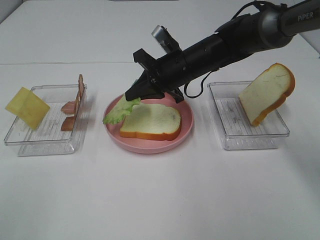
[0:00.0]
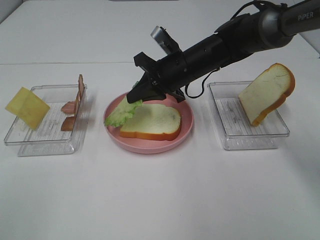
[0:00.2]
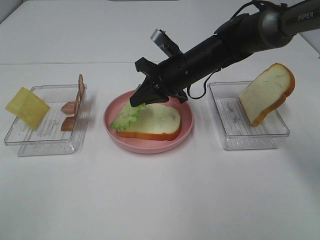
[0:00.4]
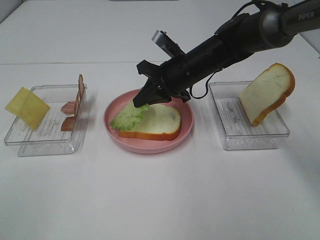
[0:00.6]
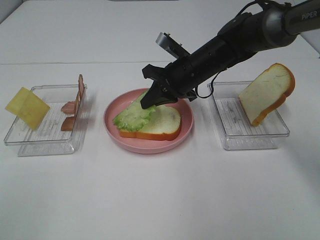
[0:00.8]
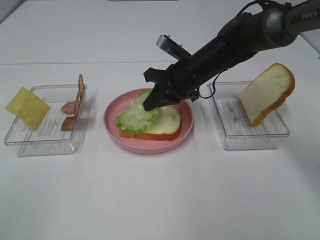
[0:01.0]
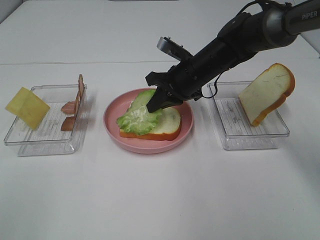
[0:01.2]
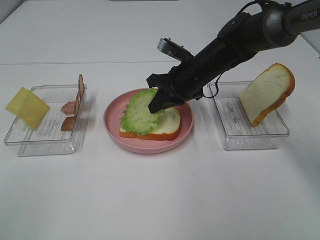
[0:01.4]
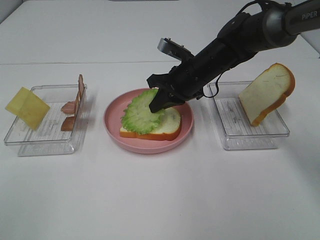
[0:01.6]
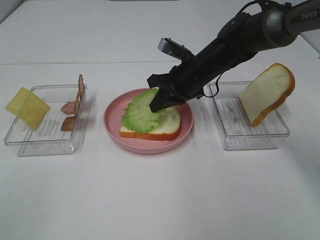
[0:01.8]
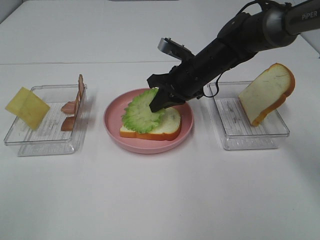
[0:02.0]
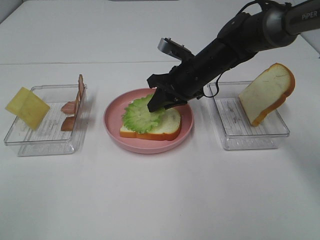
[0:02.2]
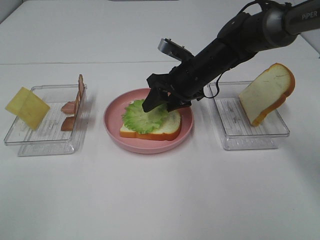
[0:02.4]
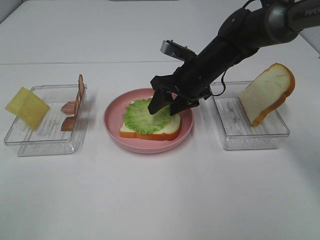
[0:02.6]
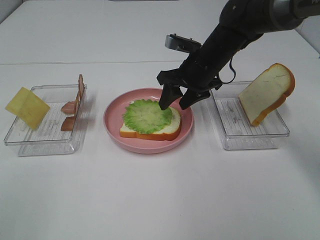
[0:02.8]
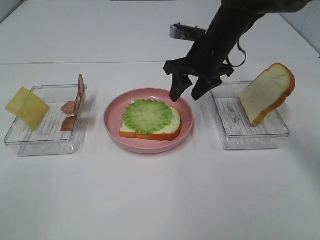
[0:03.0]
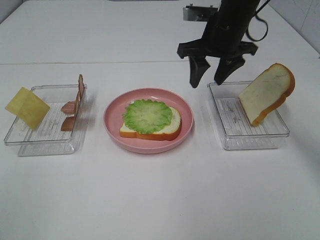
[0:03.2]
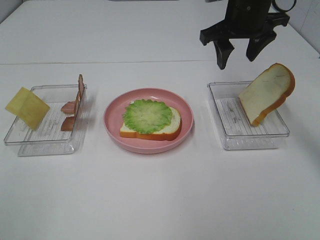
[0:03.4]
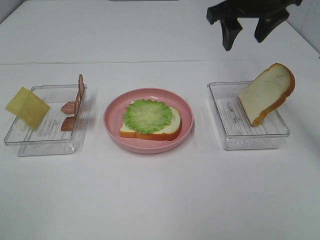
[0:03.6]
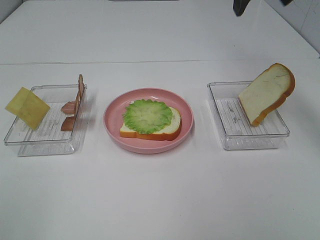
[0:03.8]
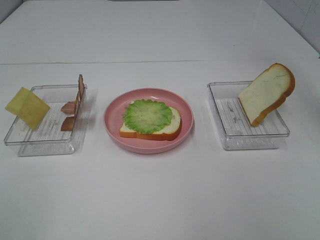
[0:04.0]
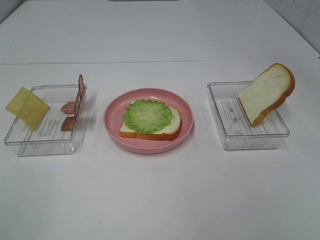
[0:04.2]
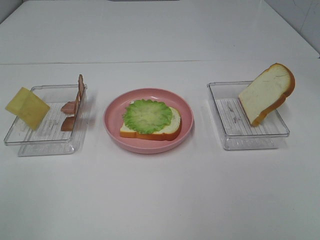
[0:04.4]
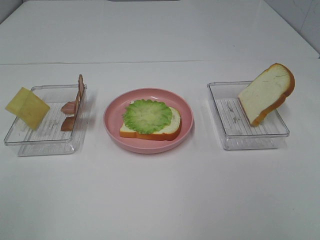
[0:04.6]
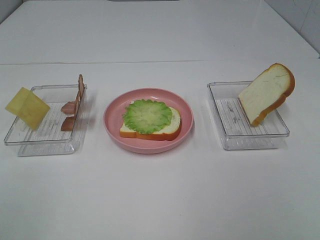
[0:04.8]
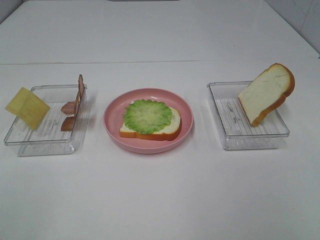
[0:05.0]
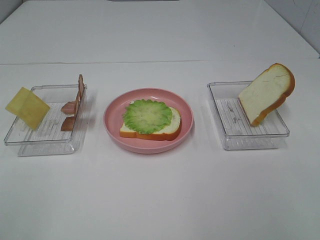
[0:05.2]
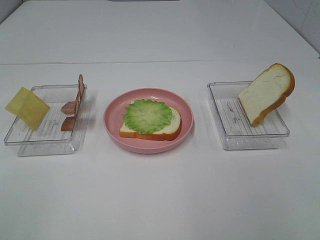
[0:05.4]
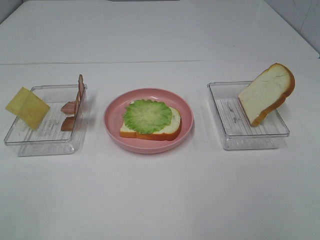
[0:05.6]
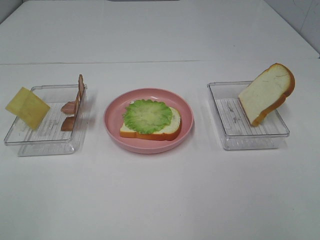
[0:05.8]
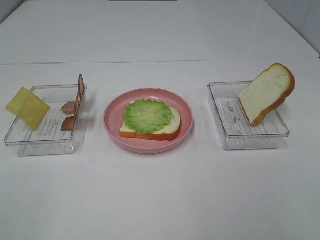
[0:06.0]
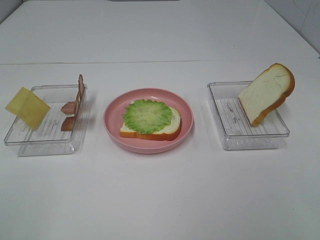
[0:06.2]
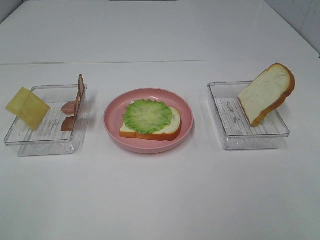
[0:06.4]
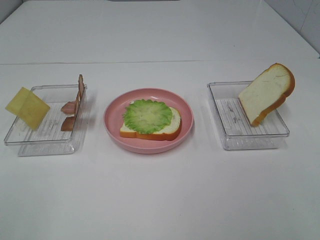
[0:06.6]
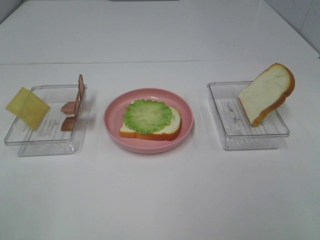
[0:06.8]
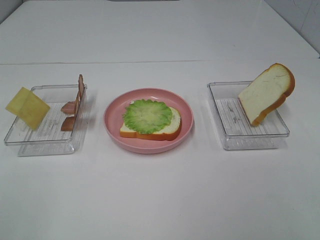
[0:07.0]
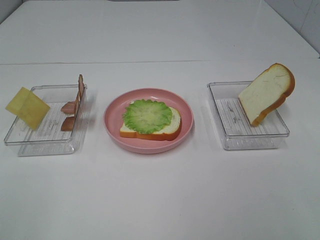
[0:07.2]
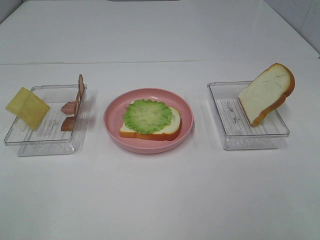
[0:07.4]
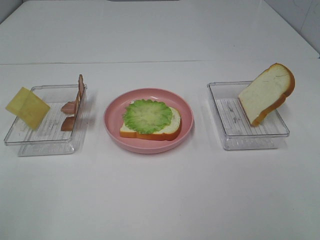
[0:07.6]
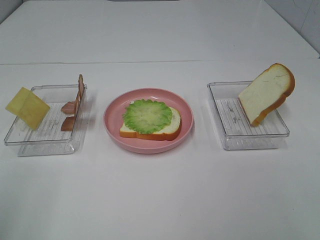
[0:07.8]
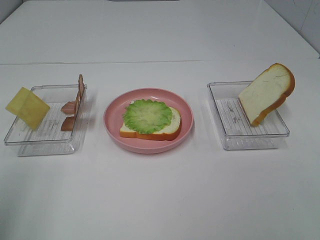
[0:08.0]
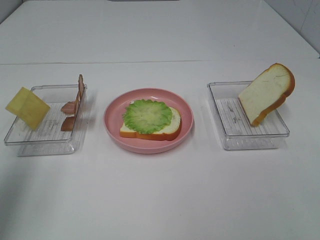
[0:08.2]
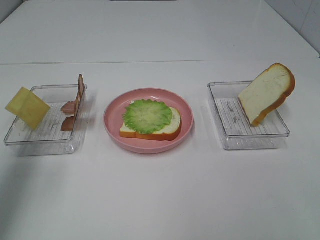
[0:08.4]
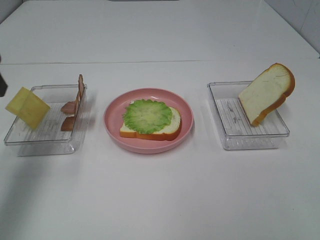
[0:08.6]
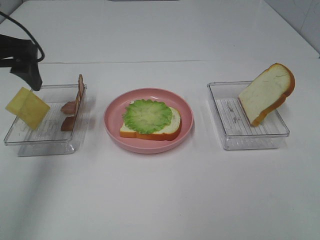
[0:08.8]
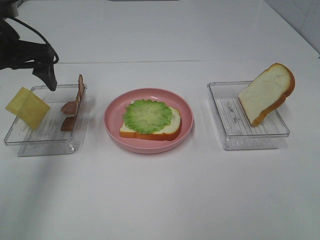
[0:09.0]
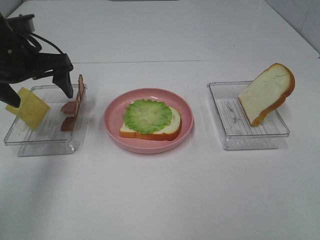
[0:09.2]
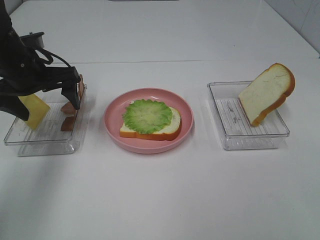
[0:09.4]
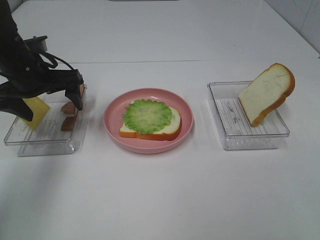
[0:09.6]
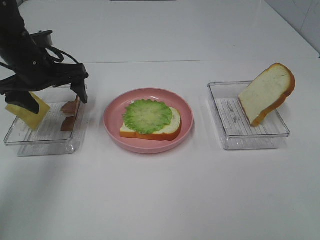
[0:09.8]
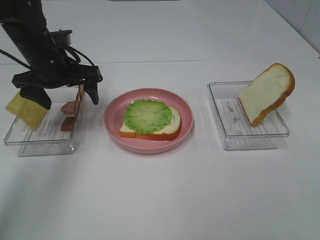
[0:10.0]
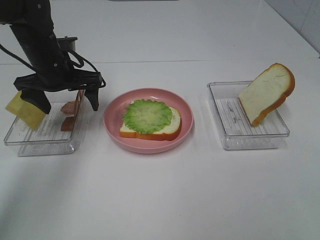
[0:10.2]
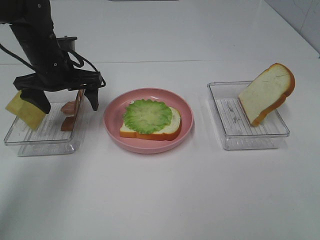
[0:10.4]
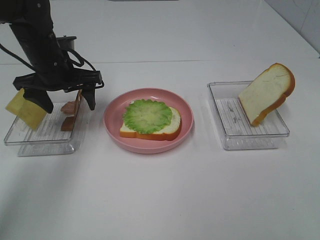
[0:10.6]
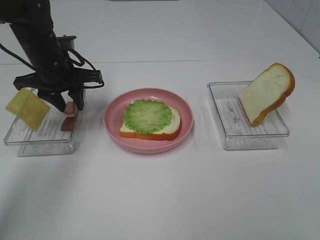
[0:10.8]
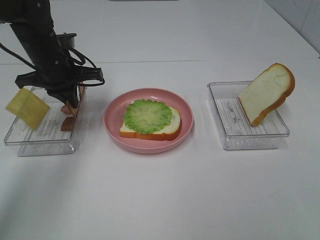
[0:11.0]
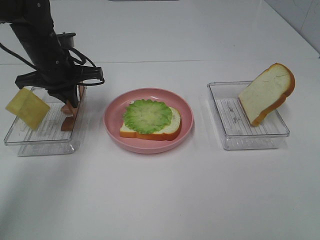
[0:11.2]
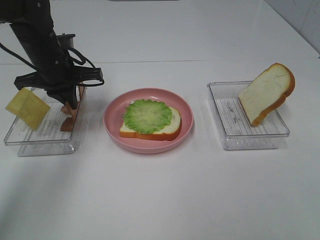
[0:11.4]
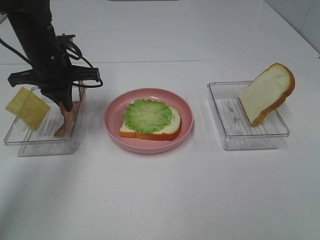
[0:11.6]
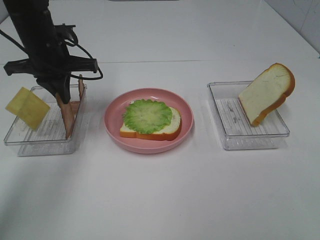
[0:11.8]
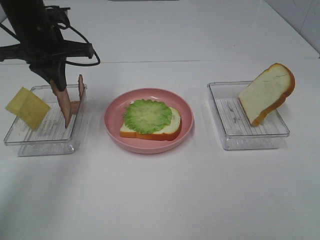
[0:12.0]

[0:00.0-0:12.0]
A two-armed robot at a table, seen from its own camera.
Task of the whole recording: Make sandwiches.
Step, 0:00.0 to 0:02.6: Right hand:place the lettuce slice on the bread slice.
Step, 0:02.8 to 0:11.0: Left hand:grab the bacon.
0:01.6 to 0:03.0: The right gripper moves upward, approximately 5 cm, and opens.
0:03.0 to 0:04.4: The right gripper moves upward, backward and to the right, approximately 50 cm, and opens its fingers.
0:07.6 to 0:09.0: The left gripper is displaced forward by about 35 cm.
0:09.0 to 0:10.4: The left gripper goes roughly 10 cm downward and forward.
0:10.4 to 0:12.0: The left gripper is displaced upward by approximately 10 cm, and closes its fingers.

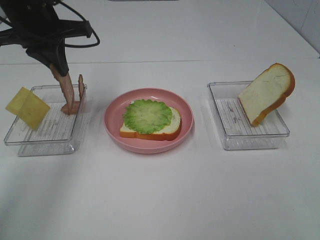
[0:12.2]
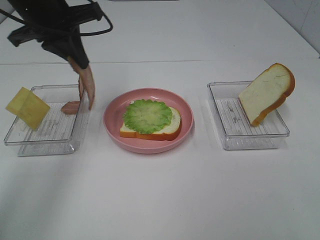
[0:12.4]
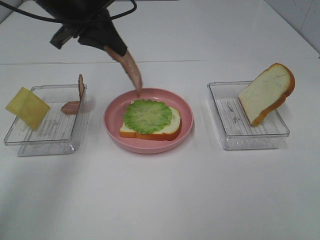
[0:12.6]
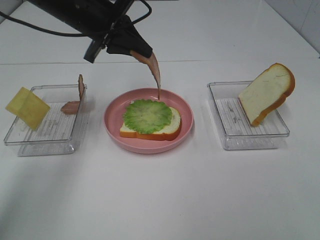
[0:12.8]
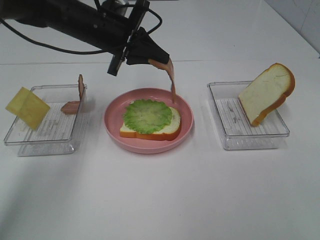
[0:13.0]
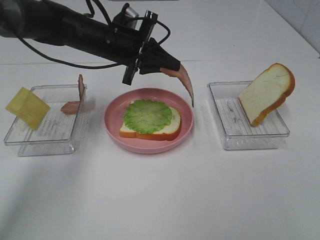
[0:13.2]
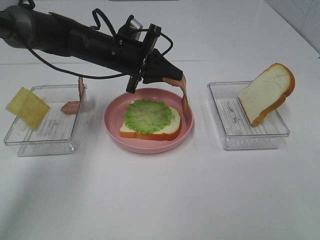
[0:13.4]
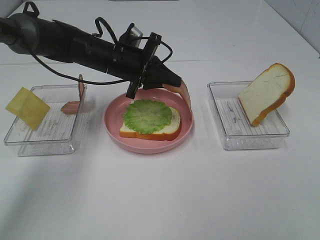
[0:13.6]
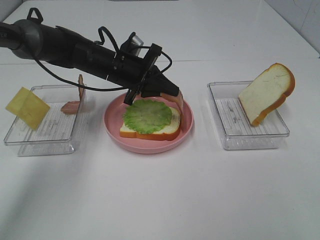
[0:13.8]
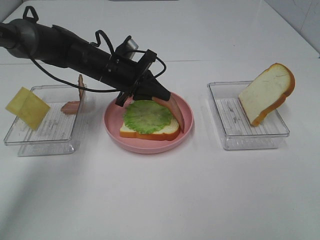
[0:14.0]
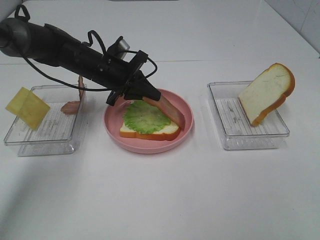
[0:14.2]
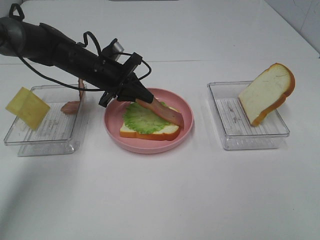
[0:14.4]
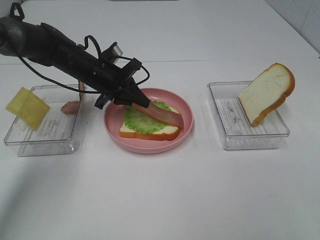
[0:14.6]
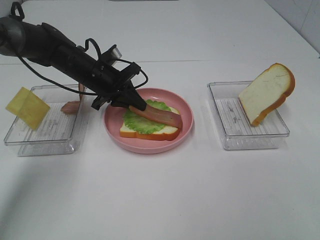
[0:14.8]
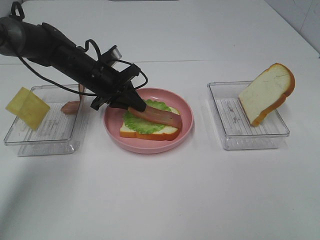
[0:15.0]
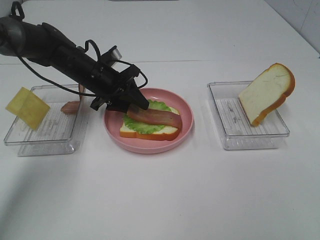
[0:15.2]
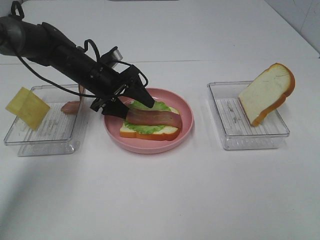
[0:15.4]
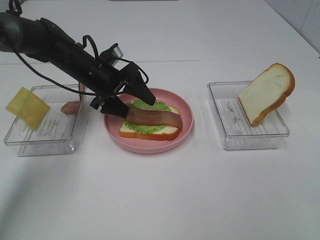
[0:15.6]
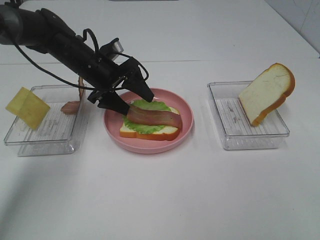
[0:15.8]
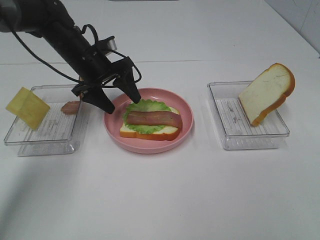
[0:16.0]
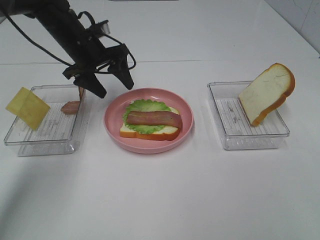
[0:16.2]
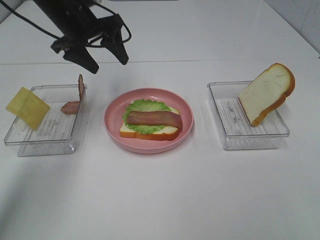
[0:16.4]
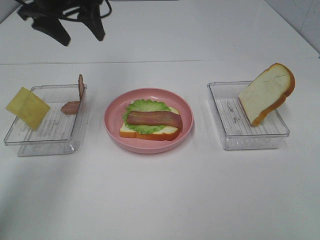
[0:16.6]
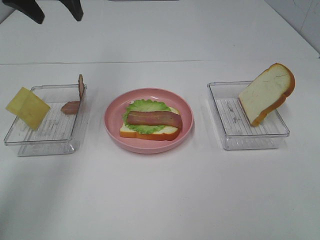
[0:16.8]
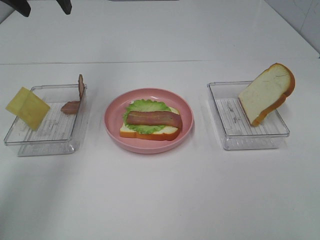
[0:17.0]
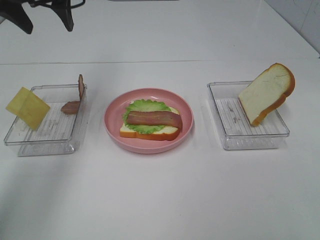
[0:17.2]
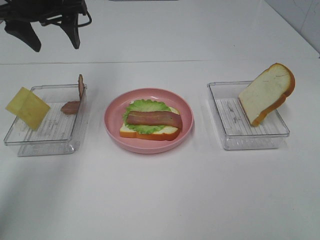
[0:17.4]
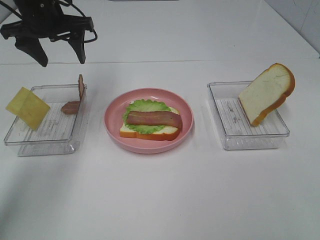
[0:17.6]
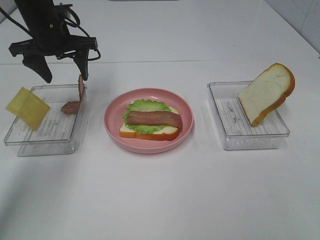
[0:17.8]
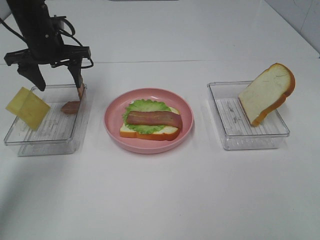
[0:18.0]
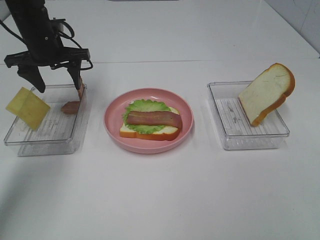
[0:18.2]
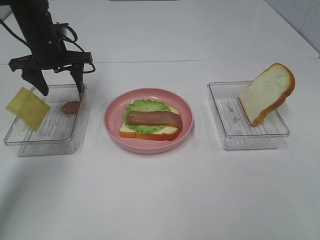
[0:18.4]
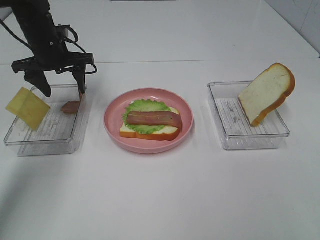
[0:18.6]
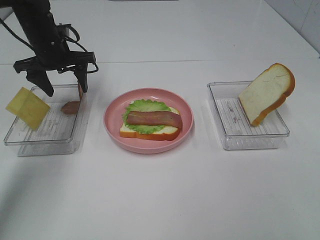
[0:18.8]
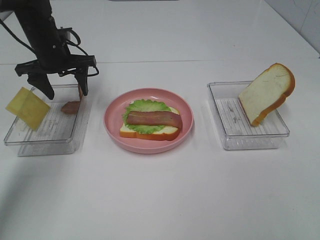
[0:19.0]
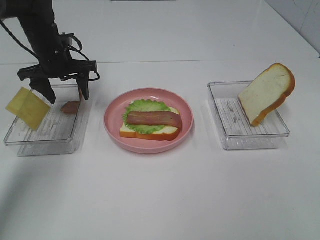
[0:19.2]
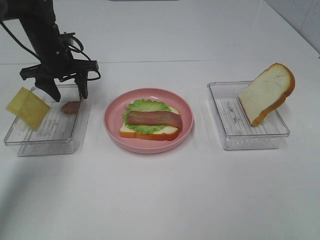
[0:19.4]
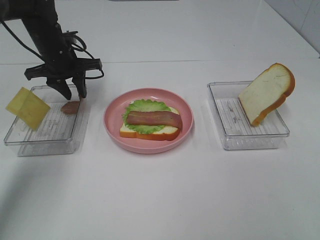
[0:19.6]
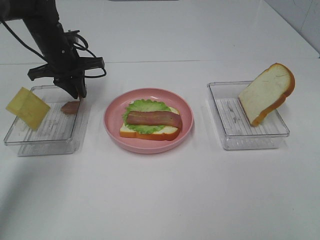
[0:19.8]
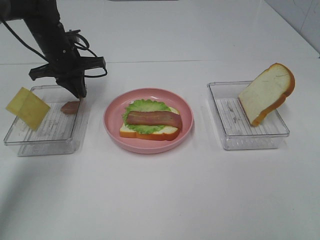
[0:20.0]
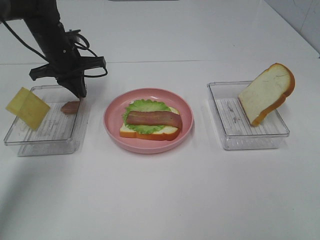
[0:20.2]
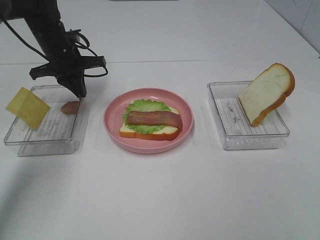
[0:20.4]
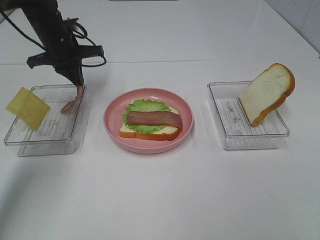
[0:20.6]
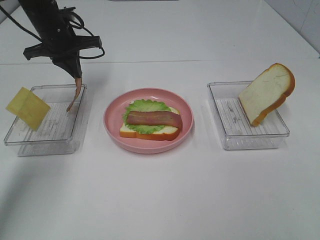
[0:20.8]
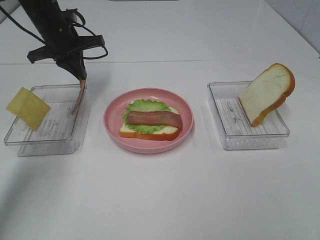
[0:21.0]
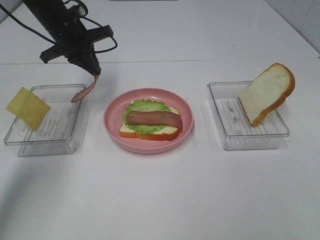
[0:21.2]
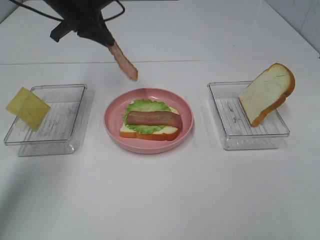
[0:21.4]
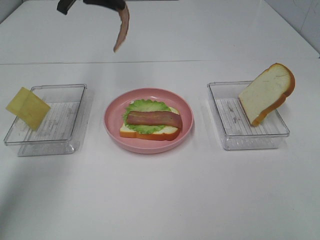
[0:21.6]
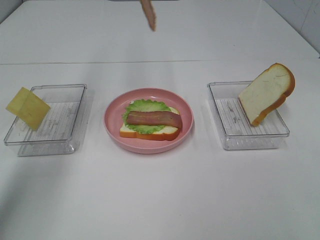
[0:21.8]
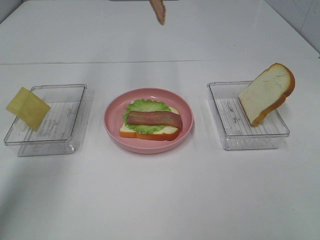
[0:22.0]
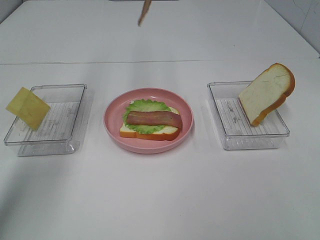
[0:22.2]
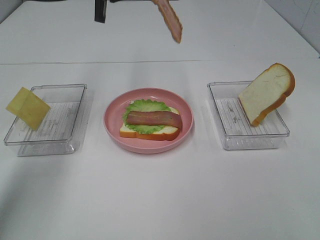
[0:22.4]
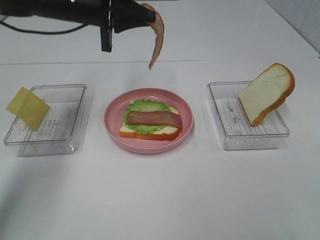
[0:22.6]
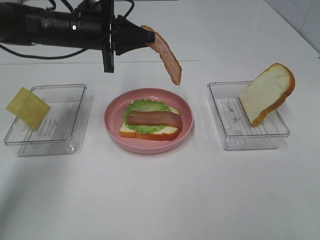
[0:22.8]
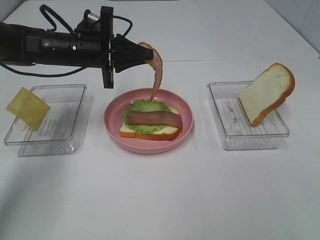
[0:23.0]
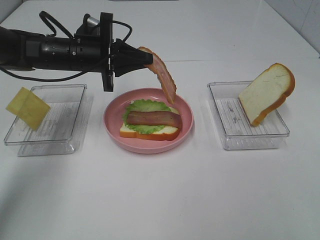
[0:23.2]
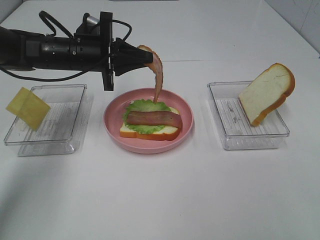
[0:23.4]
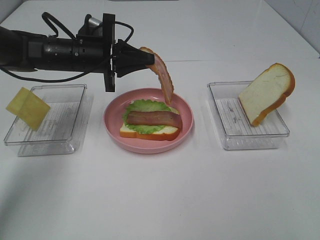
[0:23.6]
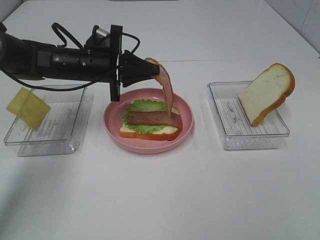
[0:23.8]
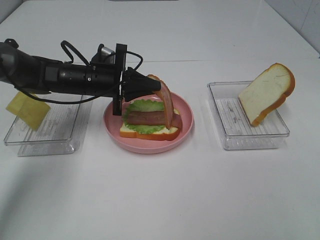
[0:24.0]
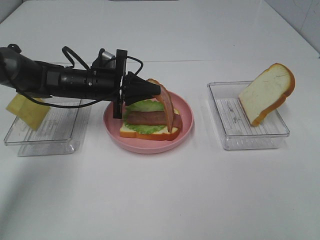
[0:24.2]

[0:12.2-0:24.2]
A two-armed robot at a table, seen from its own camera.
Task of the whole recording: Make sandwiches.
Step, 0:12.2 to 0:15.8: Left hand:place bacon on lettuce slice.
Step, 0:16.0 to 0:20.0: Left hand:grab the bacon.
0:12.2 to 0:13.8: The left gripper travels downward and to the right by about 20 cm.
0:13.8 to 0:15.2: The left gripper shifts approximately 5 cm to the left.
0:15.2 to 0:16.6: The left gripper moves upward, approximately 20 cm, and opens its fingers.
0:16.6 to 0:18.2: The left gripper goes some 10 cm downward.
0:18.2 to 0:19.8: The left gripper closes up.
0:19.8 to 0:21.2: The left gripper moves upward, roughly 5 cm.
0:21.2 to 0:22.6: The left gripper goes upward and returns, about 15 cm each way.
0:22.6 to 0:24.2: The left gripper is displaced downward by about 15 cm.
